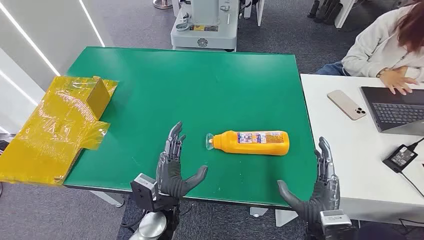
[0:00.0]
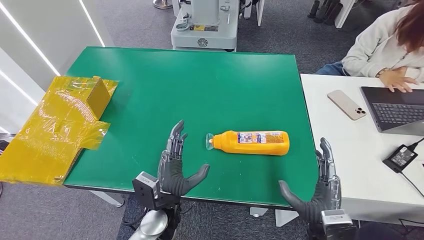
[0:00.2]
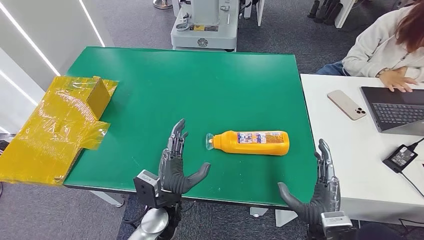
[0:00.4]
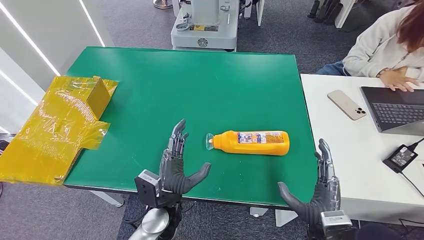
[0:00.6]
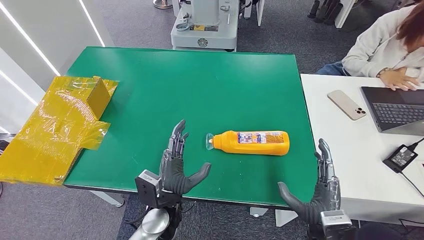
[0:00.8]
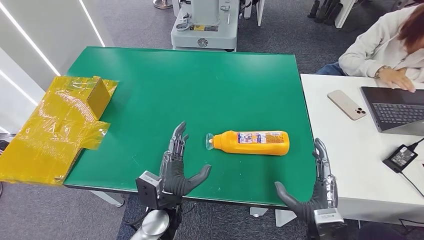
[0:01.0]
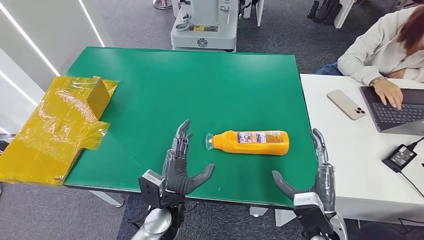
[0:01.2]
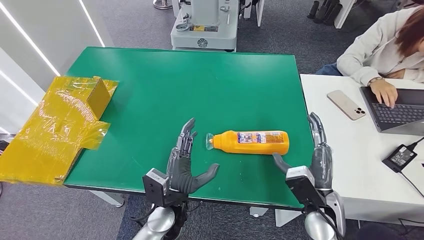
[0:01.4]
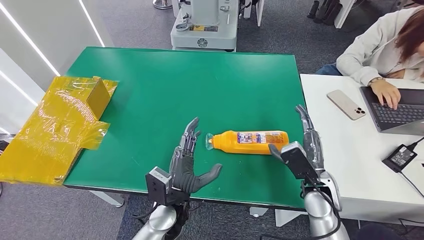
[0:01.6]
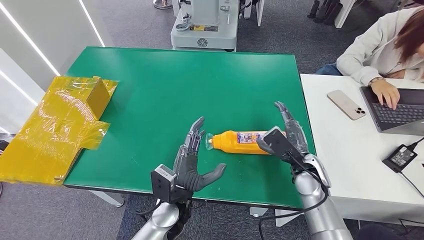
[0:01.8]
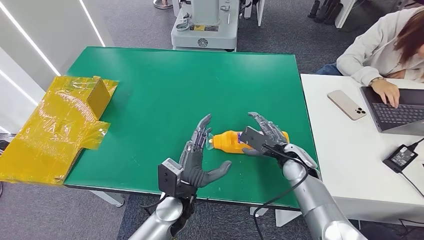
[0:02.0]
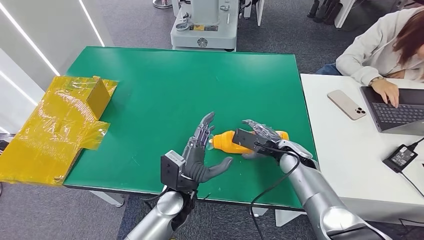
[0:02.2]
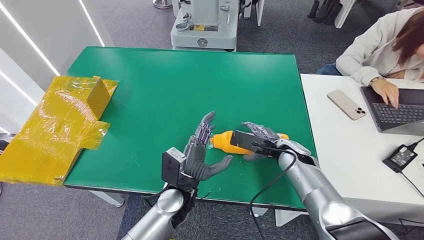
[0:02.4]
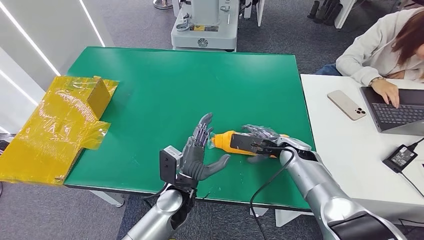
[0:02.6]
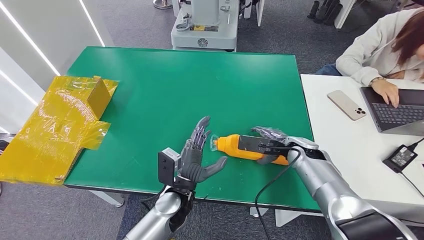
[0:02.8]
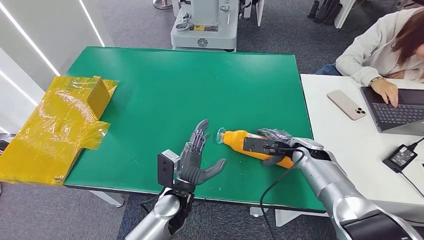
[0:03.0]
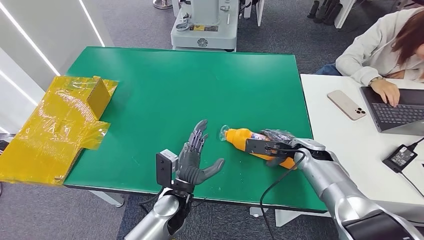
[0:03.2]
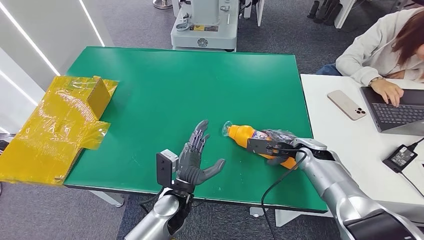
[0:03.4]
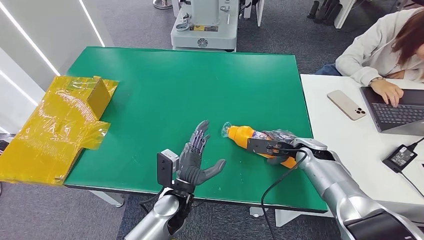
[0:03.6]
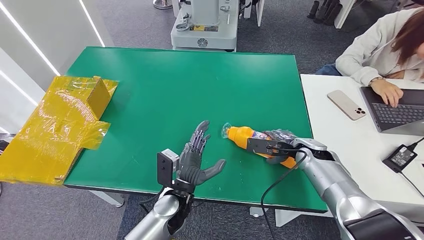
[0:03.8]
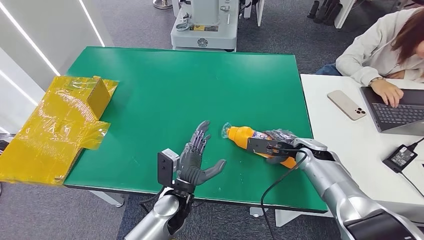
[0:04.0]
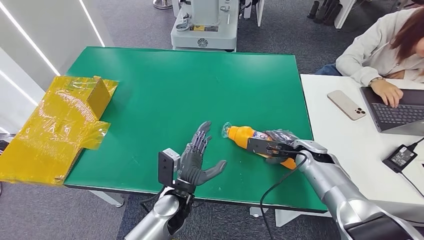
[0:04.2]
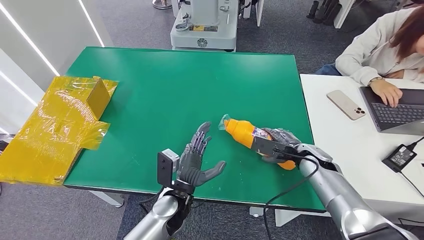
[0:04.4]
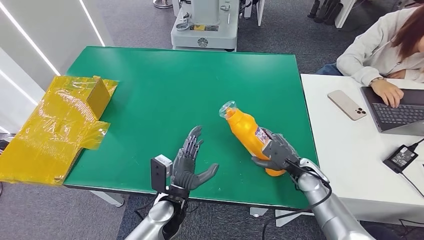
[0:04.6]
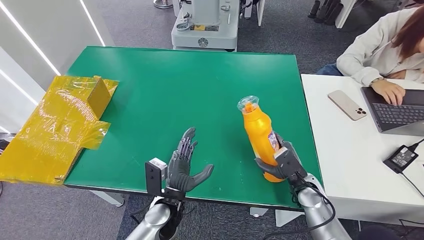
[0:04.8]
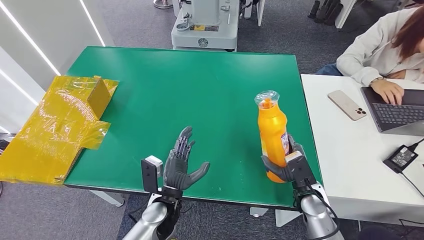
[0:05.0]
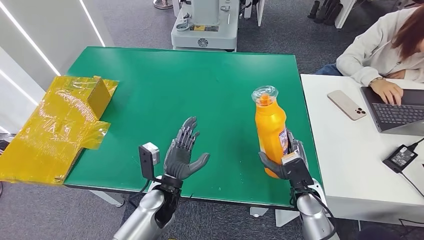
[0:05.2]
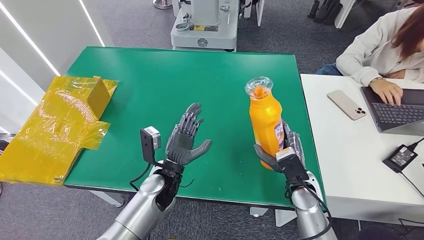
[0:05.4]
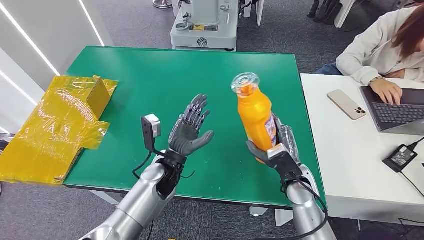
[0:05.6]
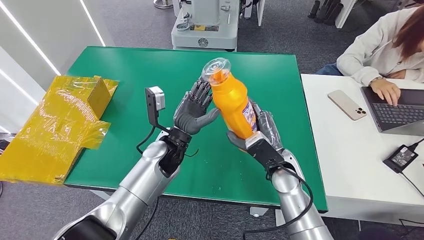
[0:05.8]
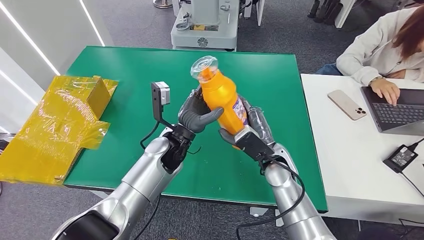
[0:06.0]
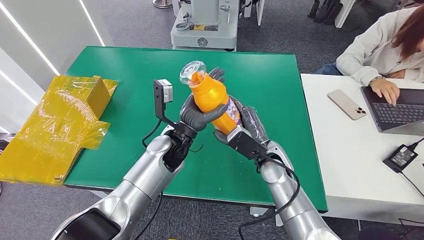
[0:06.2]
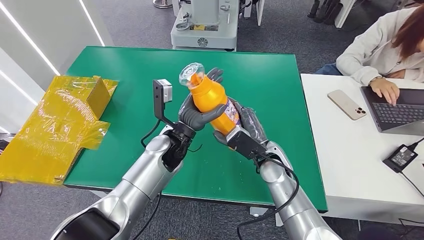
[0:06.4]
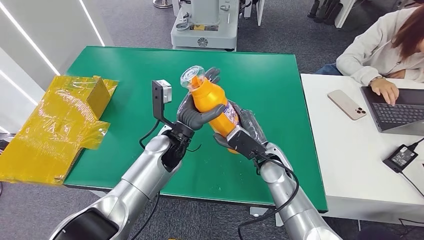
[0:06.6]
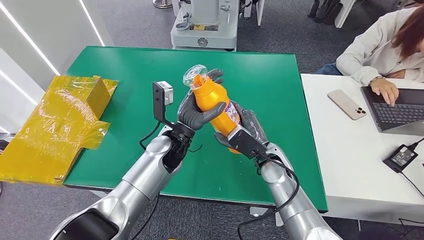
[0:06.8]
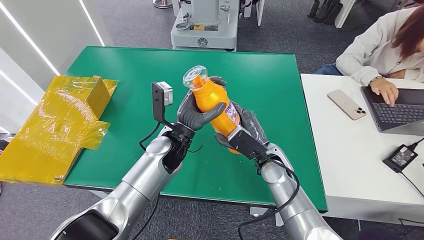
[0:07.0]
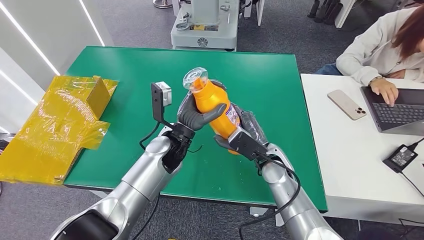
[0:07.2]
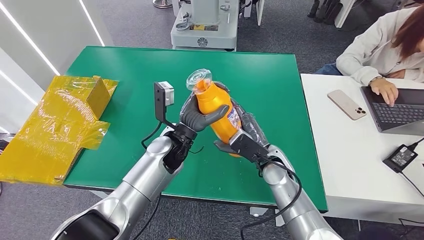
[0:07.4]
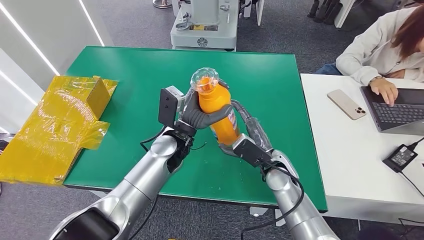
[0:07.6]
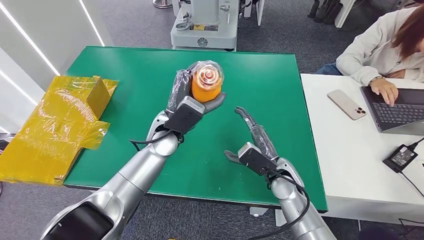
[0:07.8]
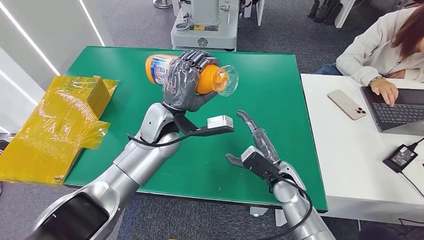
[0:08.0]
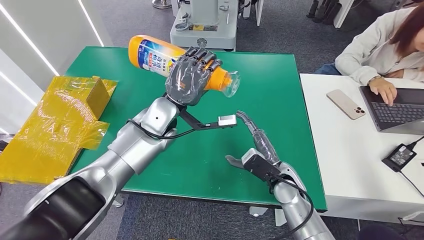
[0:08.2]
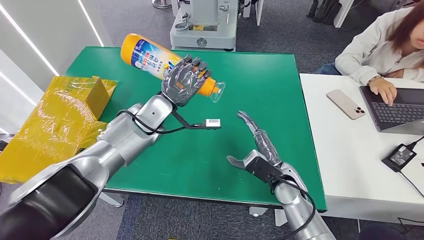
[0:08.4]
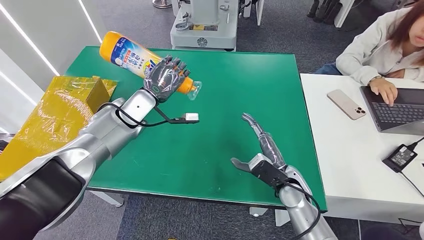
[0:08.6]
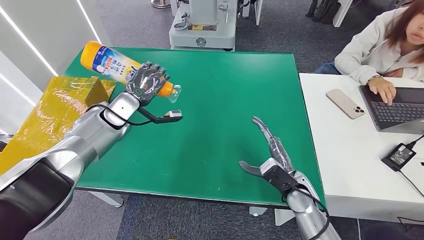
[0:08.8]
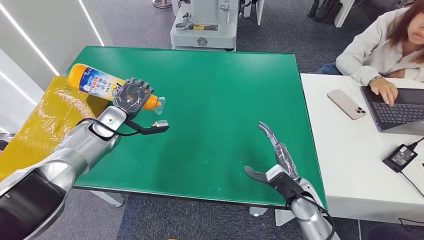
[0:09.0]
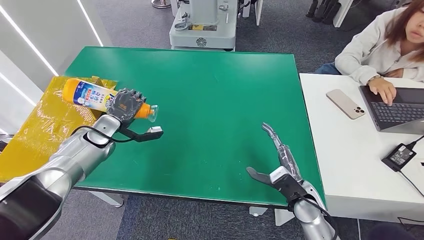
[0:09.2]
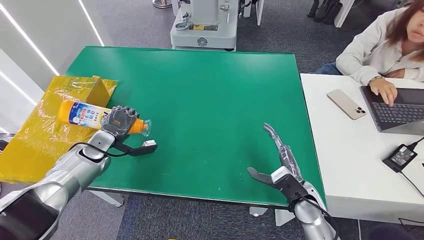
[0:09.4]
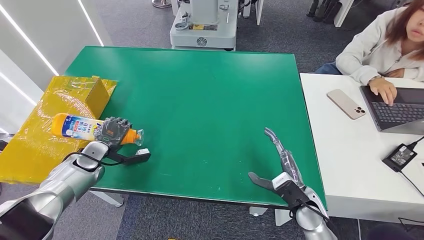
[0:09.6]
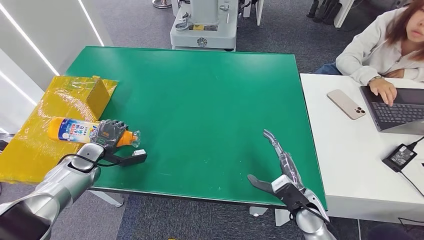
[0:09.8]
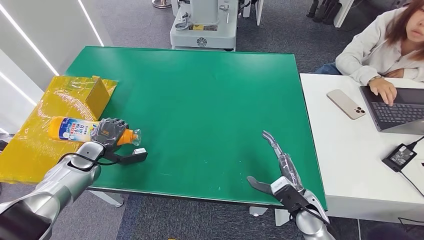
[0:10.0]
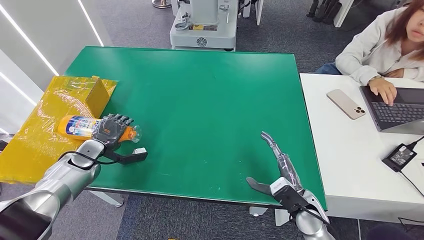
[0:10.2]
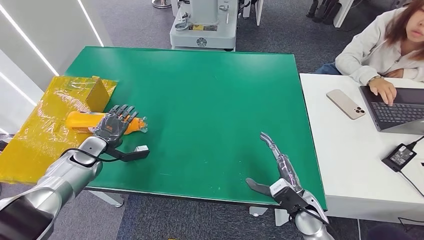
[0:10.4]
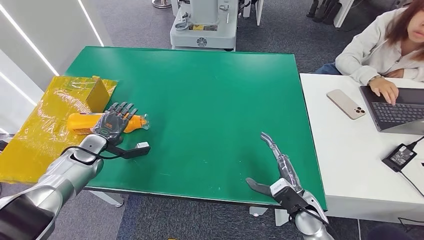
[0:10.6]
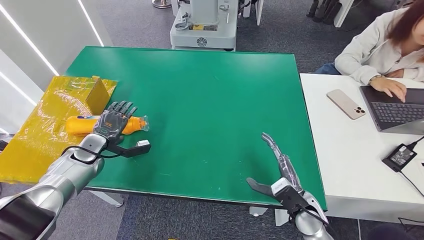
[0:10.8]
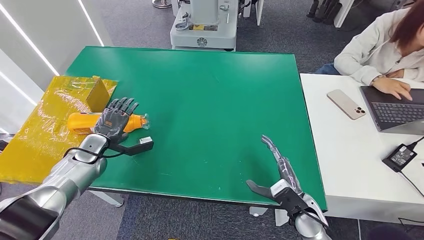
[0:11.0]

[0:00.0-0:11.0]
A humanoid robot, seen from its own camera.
Step, 0.0 to 5.4 s: Pick up the bottle from the table.
Step, 5.8 to 11.0 s: Turn the bottle to the front side.
1.6 to 3.2 s: The right hand is displaced forward and to the right by about 10 cm.
3.2 to 4.8 s: The right hand moves backward and downward, some 10 cm.
4.8 to 6.2 s: The left hand moves forward and upward, about 20 cm, while the right hand moves to the left and upward, approximately 15 cm.
6.2 to 7.8 s: The right hand shifts by approximately 5 cm.
9.4 to 11.0 s: There are only small adjustments of the hands.

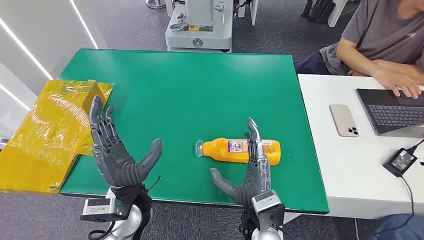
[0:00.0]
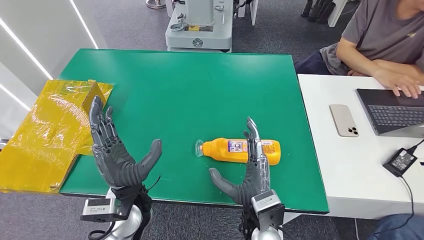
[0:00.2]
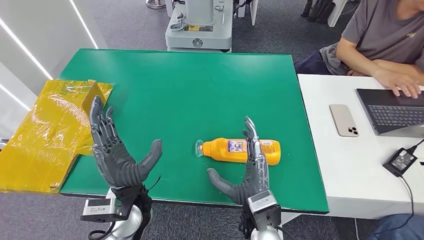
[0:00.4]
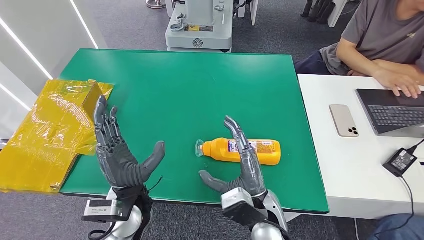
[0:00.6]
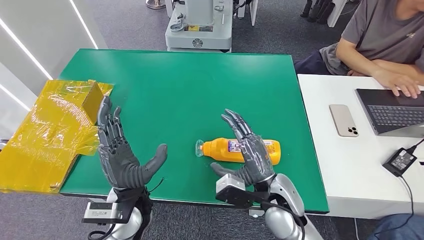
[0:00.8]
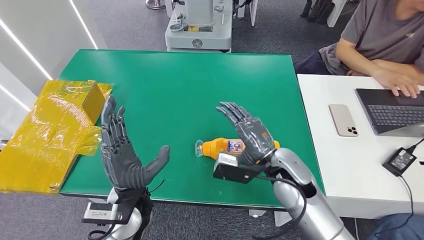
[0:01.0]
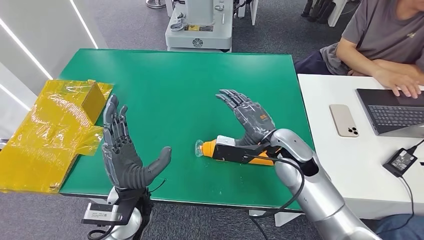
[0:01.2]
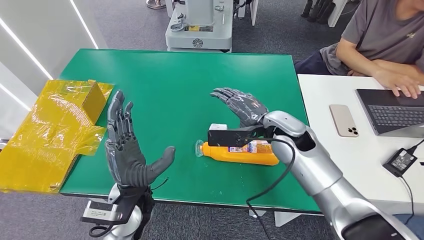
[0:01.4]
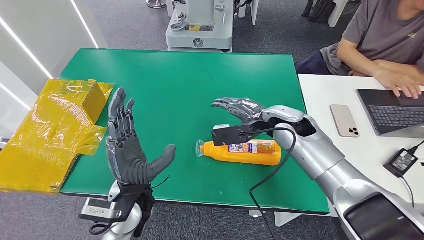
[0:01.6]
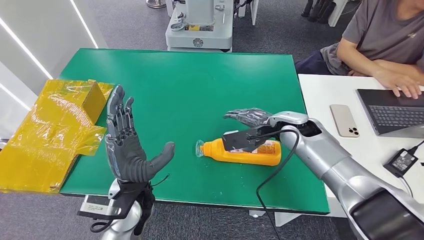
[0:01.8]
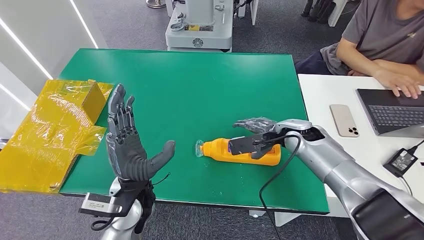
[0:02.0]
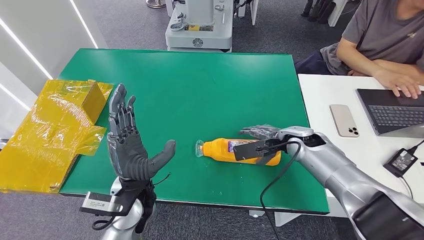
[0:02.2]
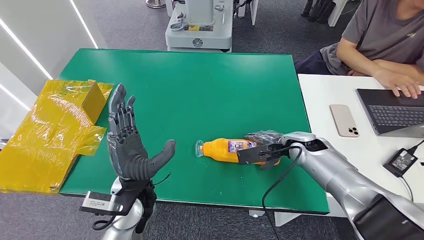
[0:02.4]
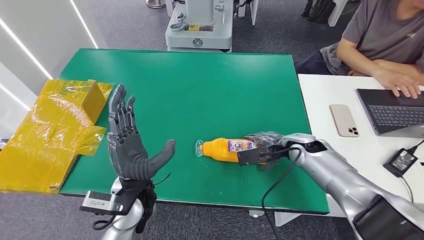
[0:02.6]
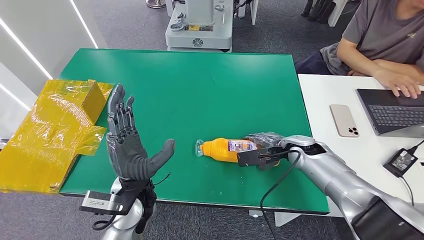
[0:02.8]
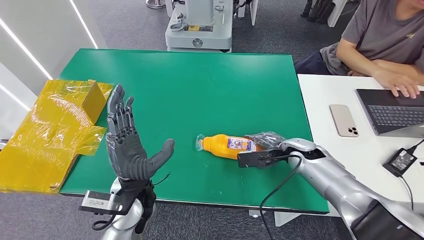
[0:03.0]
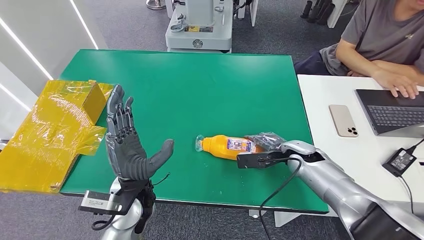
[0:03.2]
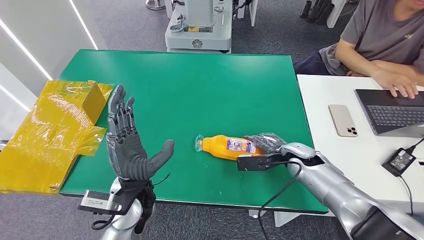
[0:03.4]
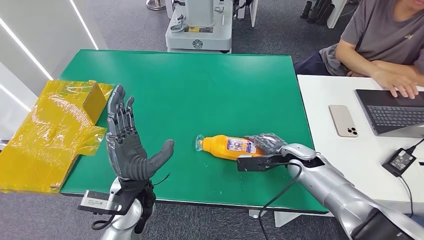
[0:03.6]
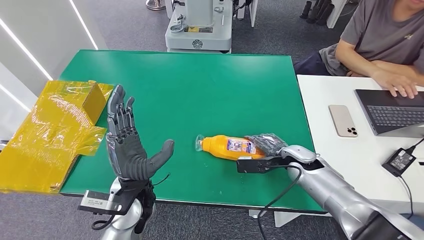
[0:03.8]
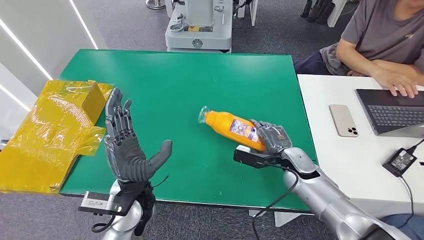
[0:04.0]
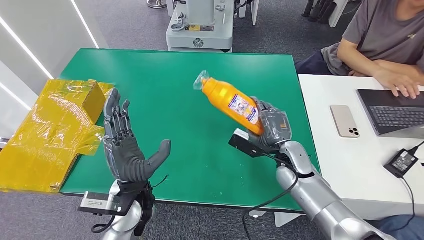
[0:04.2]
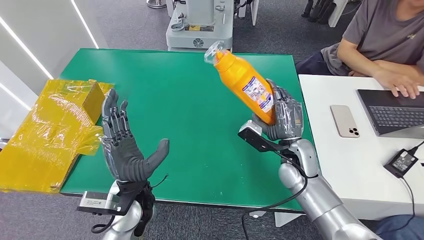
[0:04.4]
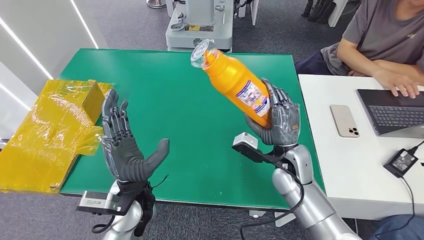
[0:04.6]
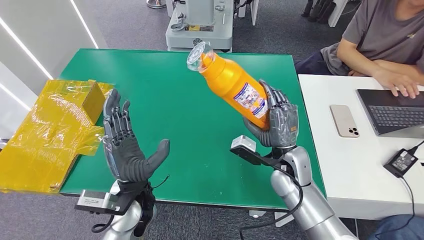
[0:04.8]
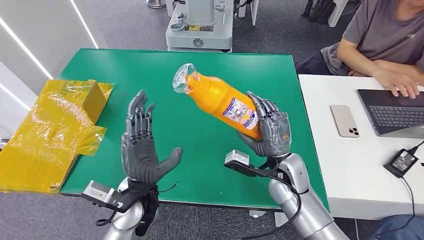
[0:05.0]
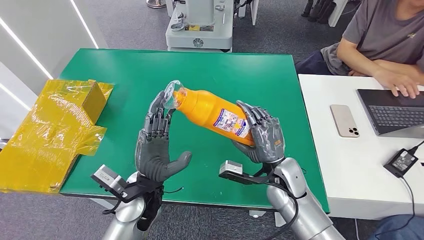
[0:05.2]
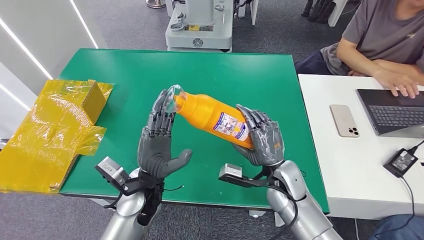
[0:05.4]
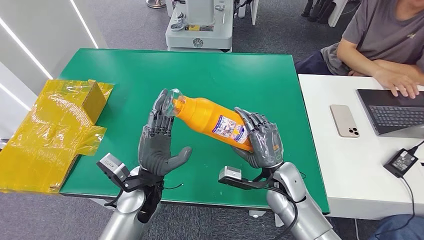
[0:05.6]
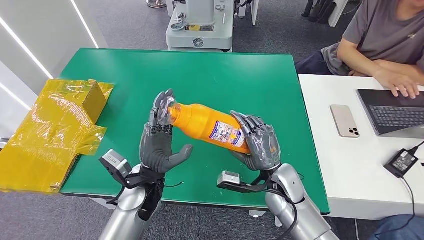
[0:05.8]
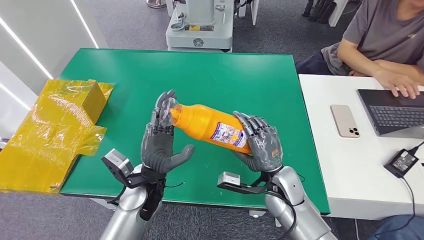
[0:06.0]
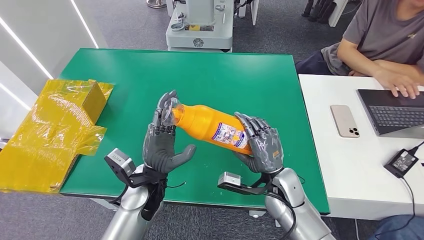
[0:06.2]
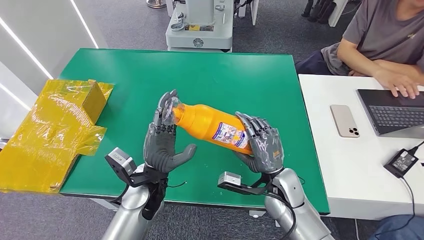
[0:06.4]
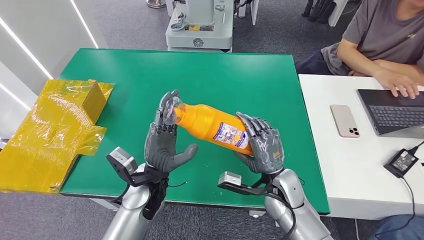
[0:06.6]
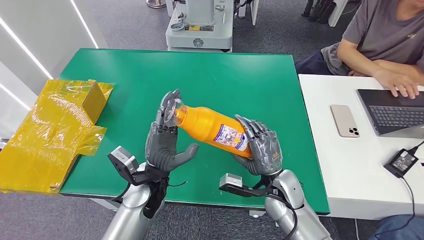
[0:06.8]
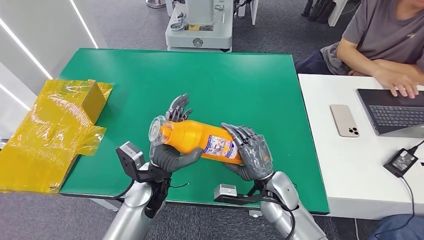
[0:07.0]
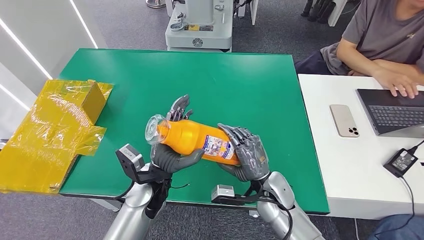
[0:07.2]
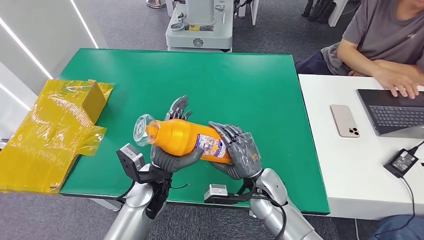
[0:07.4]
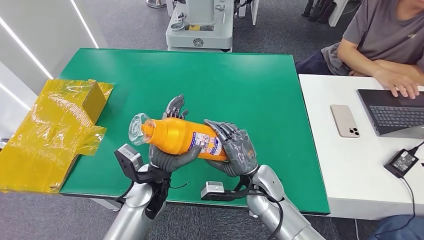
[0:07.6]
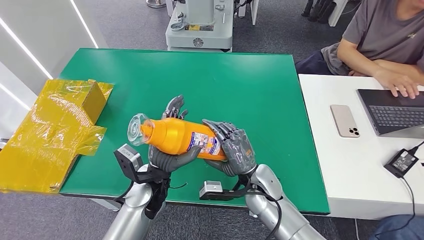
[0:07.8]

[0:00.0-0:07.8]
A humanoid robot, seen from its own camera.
Step, 0.0 to 4.8 s: Pick up the bottle from the table.
1.6 to 3.2 s: The right hand is displaced downward and to the right by about 15 cm.
3.2 to 4.6 s: The right hand goes approximately 10 cm to the left.
4.6 to 6.2 s: The right hand changes place by approximately 5 cm.
6.2 to 7.8 s: The right hand ends up approximately 5 cm from where it was.
